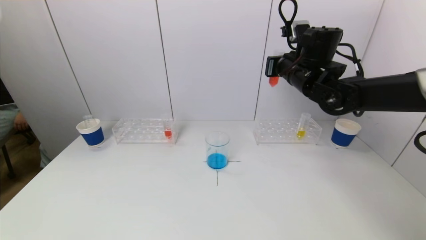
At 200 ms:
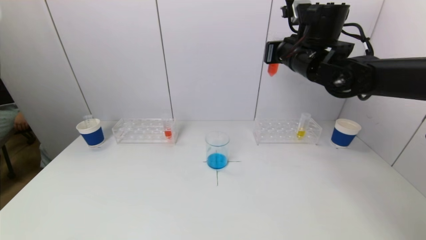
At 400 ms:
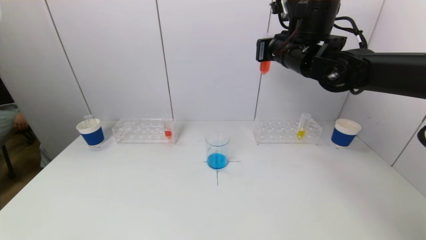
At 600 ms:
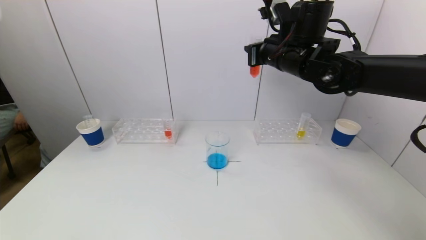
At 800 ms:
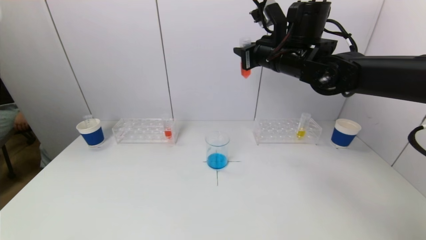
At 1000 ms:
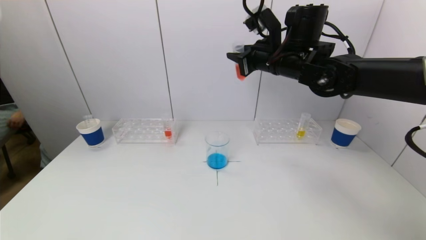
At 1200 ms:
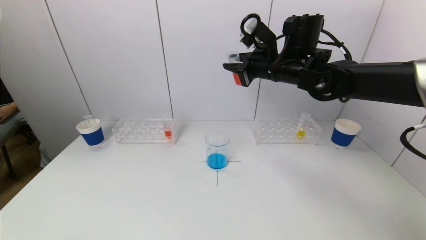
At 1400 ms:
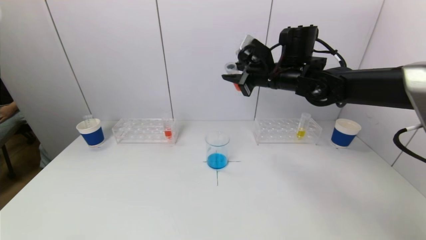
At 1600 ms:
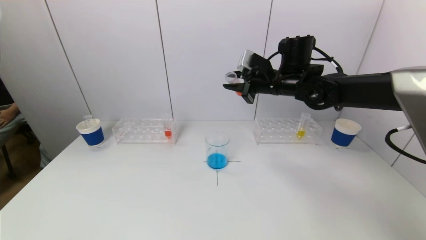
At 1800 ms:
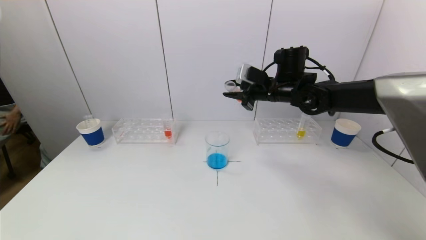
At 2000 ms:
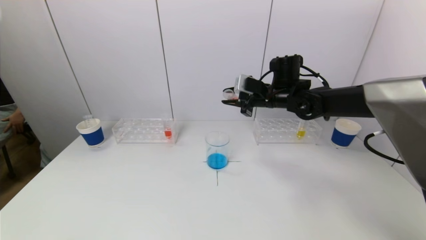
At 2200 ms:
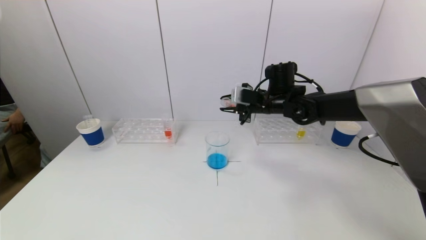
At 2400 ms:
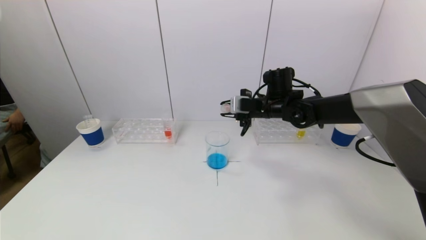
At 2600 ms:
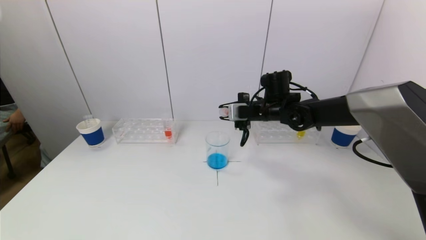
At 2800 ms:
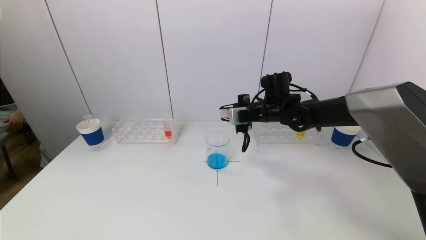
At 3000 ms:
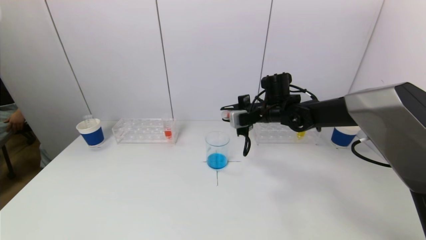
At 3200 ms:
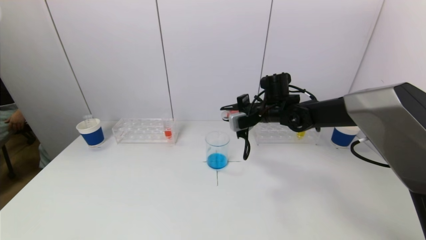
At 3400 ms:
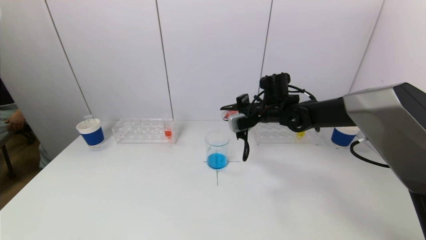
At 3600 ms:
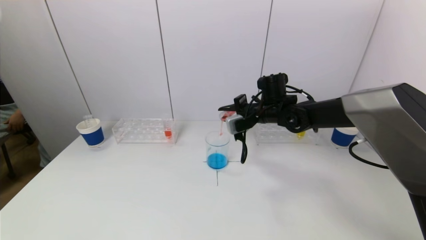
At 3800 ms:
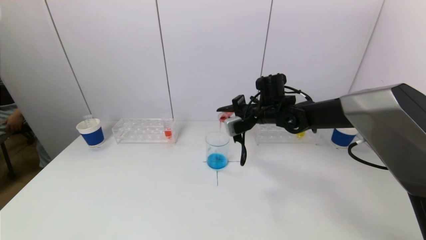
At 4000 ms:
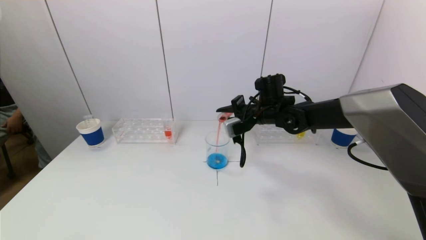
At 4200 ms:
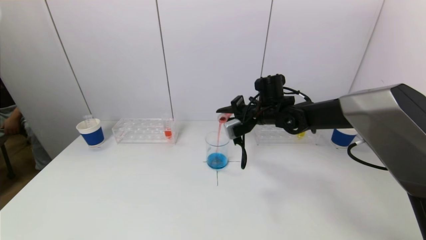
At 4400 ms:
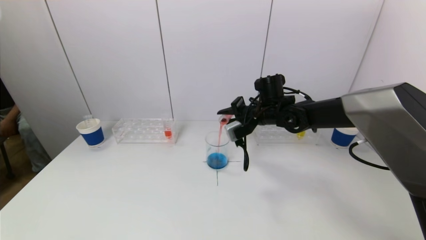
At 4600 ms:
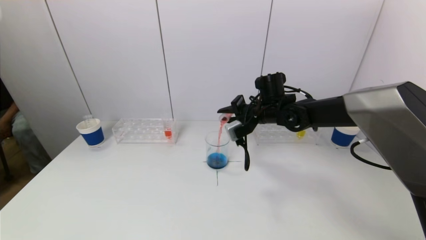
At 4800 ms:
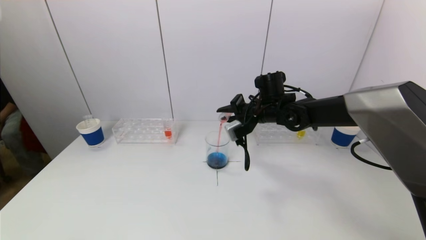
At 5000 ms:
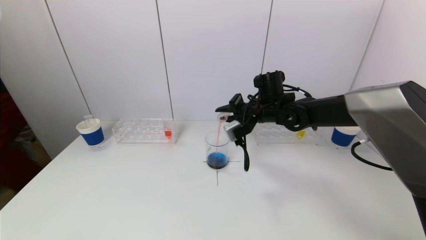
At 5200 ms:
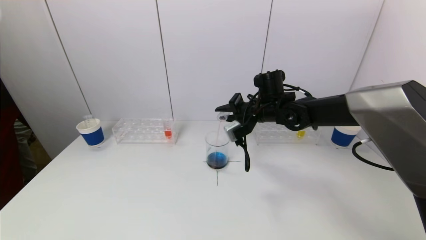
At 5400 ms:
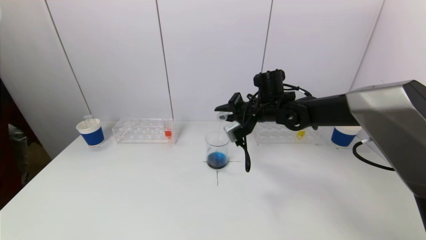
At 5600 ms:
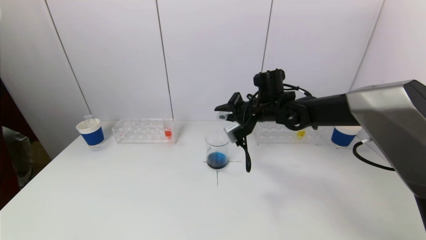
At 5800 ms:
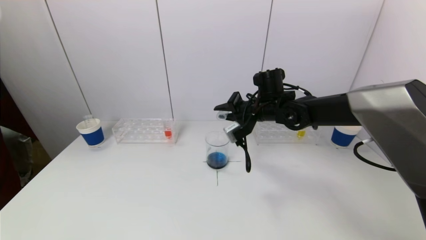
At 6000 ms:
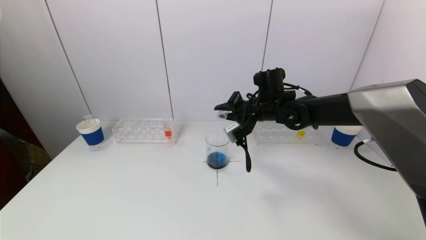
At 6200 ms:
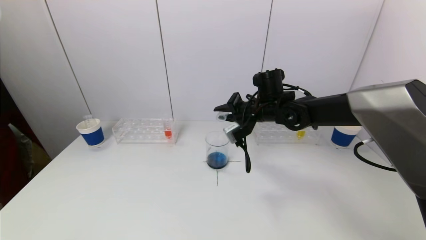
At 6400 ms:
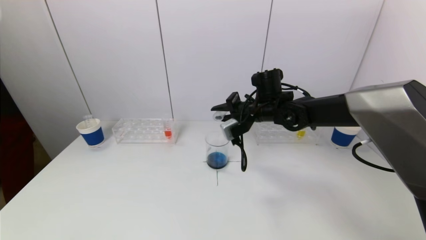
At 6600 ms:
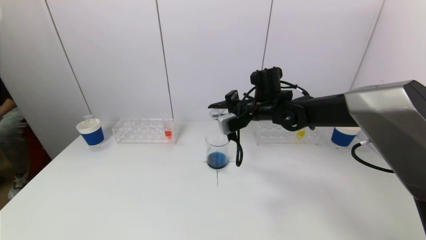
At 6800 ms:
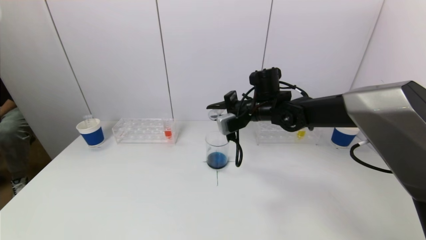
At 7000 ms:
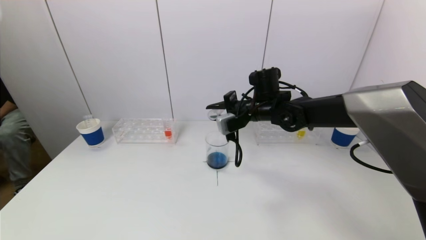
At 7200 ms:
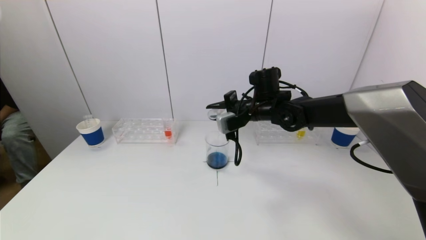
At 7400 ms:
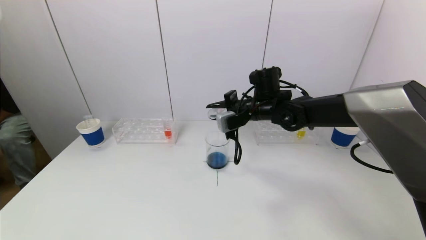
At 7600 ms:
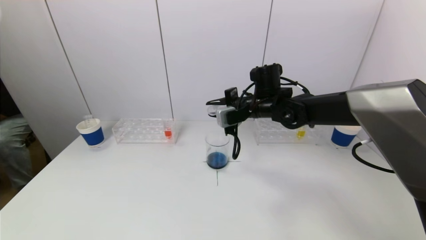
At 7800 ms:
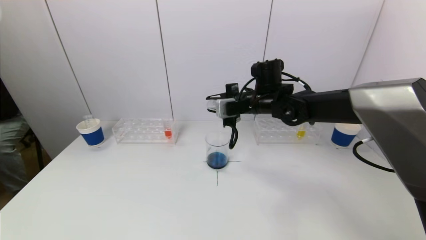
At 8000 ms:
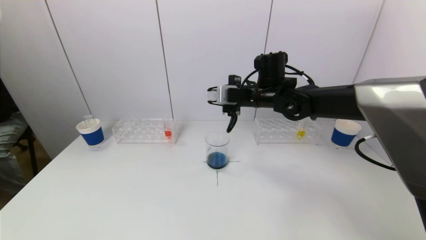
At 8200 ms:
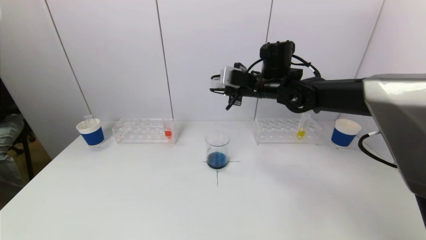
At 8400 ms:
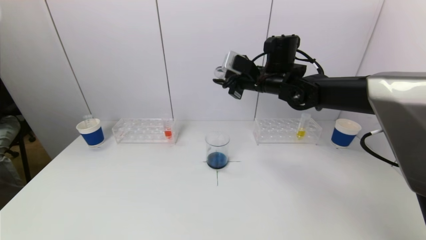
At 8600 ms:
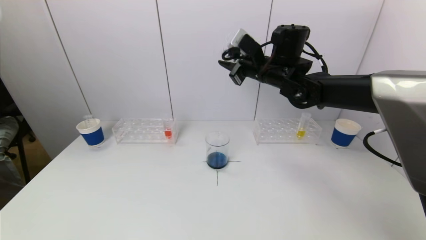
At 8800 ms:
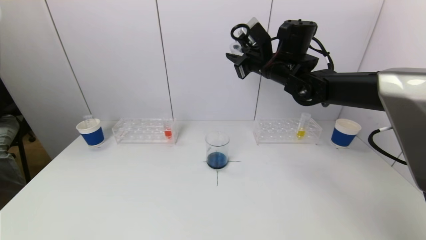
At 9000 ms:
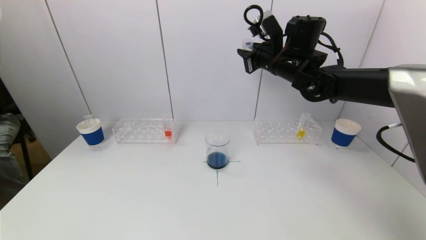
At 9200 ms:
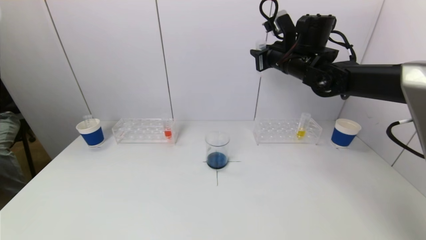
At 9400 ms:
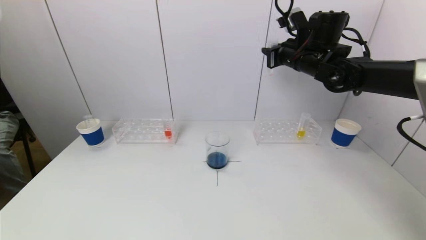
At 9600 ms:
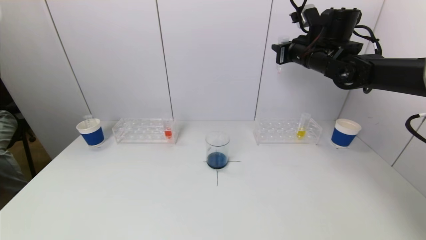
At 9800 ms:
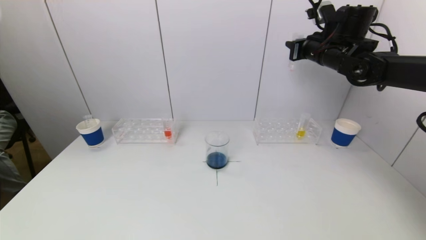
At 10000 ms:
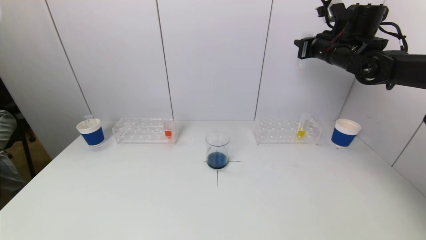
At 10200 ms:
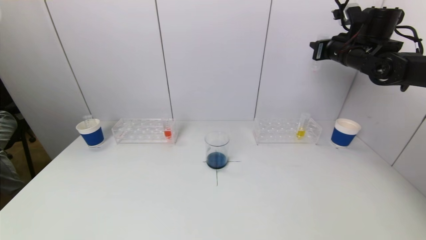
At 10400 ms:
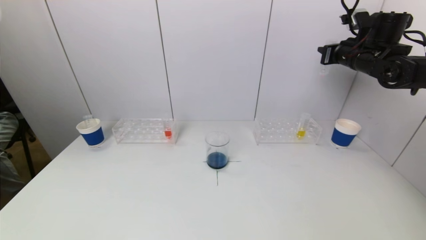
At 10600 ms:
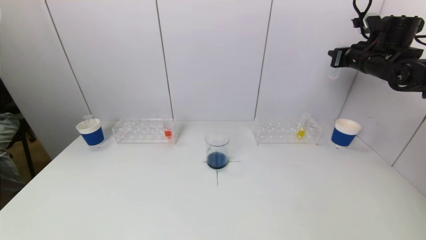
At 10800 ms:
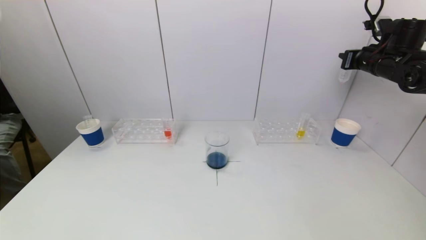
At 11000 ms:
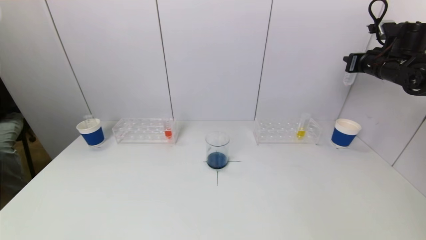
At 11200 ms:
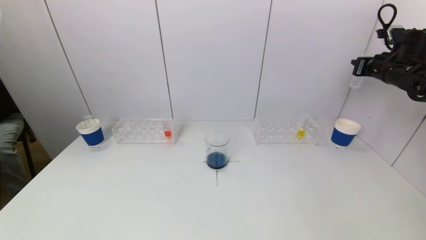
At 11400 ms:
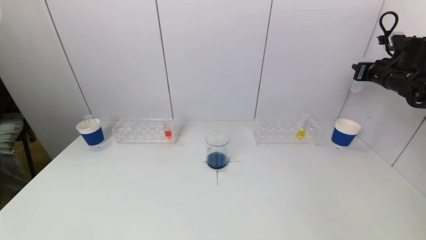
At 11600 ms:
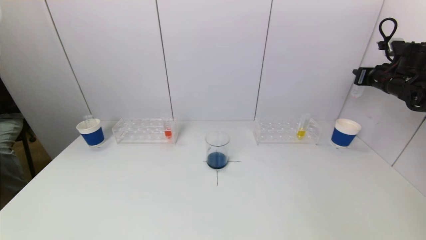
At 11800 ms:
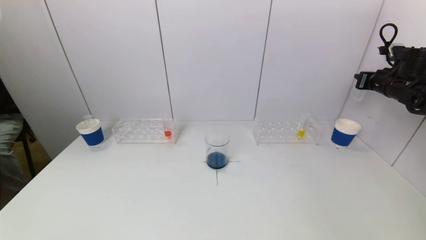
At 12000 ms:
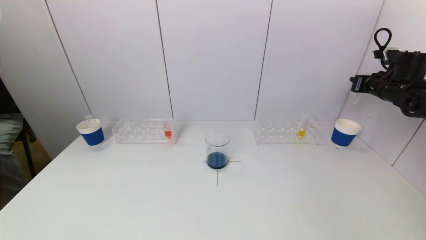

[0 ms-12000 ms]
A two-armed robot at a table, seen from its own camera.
Task of the whole recording: pick up a test tube with pigment on left test tube rack and a test tube with pigment on right test tube rack by grippers and pour them into the beaker.
Step, 0 ms to 6400 ms: Pour the red reagent into the graduated cylinder with the right gripper.
1600 ms to 3000 ms: The right gripper shifts roughly 10 cm downward.
3000 ms to 4400 ms: There are only small adjustments of the grippers.
4400 ms to 6000 ms: The grippers move only a little.
7600 ms to 9000 ms: The right gripper travels upward and to the right by some 10 cm.
9000 ms to 10400 ms: The right gripper is displaced to the right by approximately 20 cm.
10400 ms to 12000 ms: The right gripper heads to the right and downward, covering roughly 15 cm.

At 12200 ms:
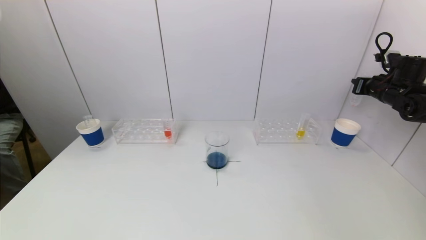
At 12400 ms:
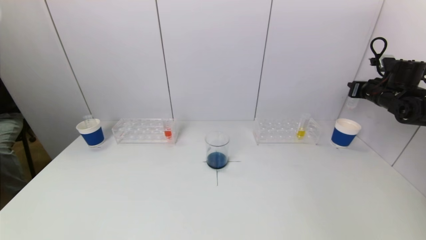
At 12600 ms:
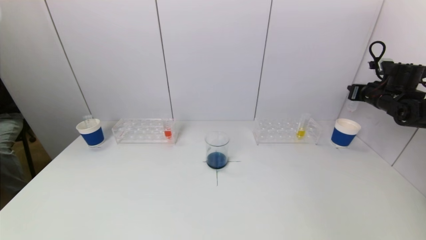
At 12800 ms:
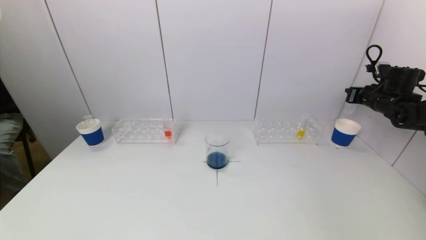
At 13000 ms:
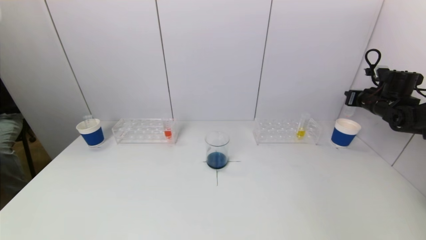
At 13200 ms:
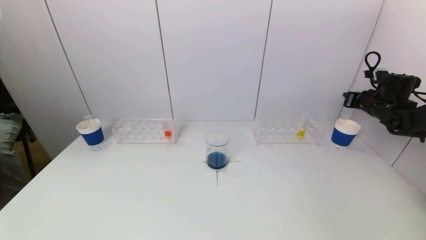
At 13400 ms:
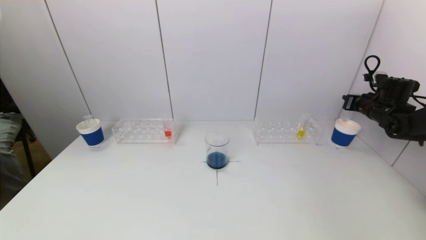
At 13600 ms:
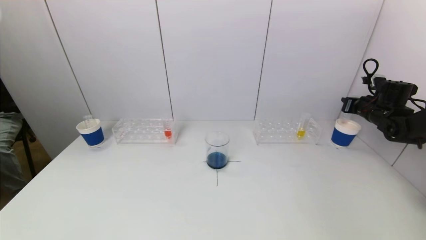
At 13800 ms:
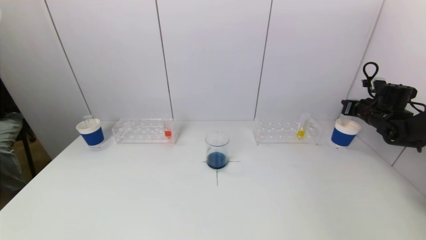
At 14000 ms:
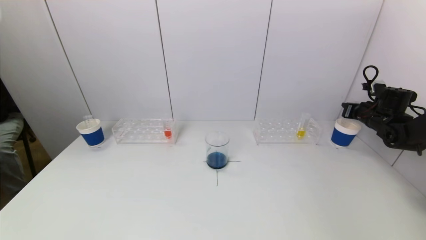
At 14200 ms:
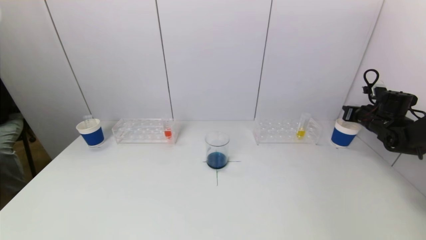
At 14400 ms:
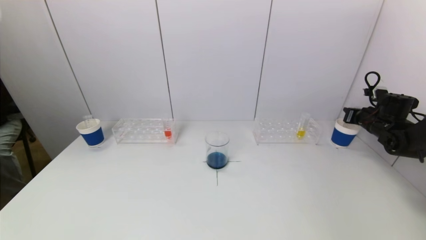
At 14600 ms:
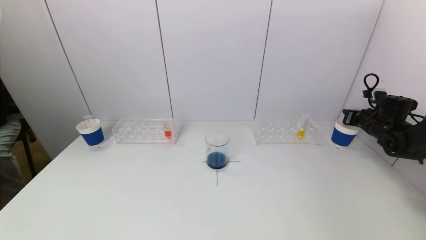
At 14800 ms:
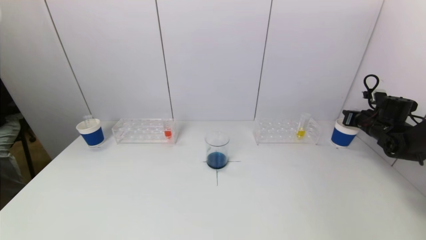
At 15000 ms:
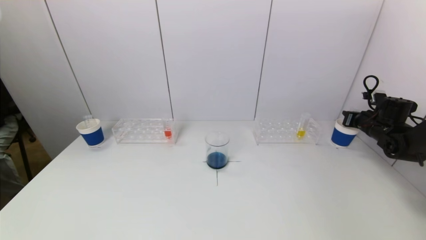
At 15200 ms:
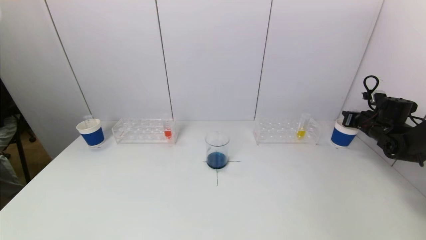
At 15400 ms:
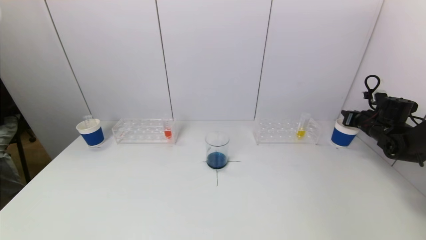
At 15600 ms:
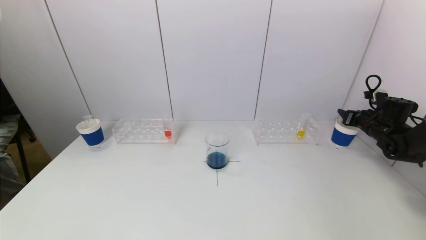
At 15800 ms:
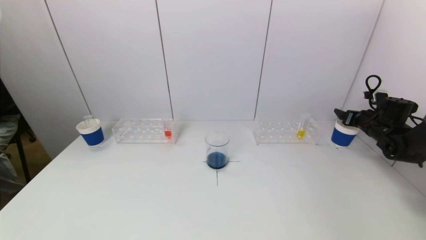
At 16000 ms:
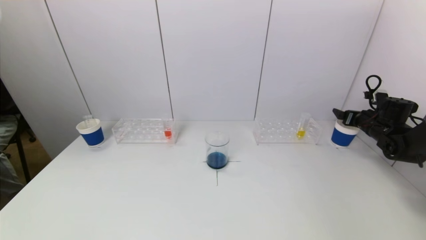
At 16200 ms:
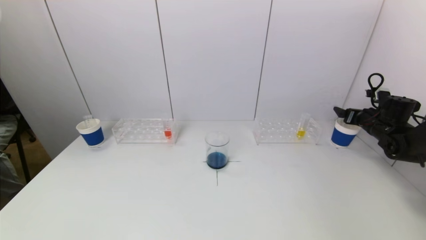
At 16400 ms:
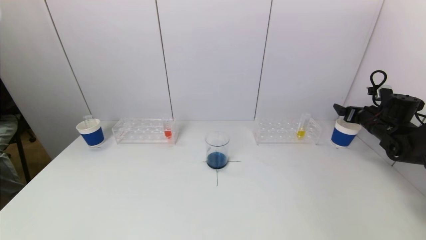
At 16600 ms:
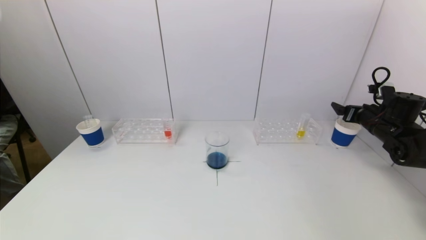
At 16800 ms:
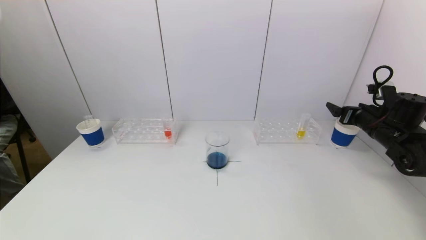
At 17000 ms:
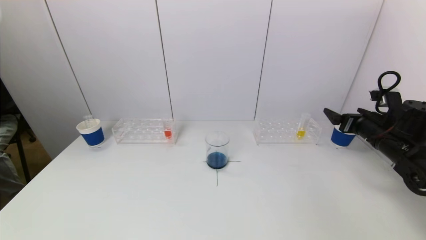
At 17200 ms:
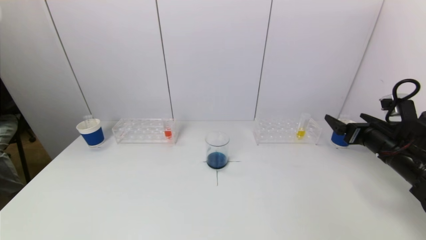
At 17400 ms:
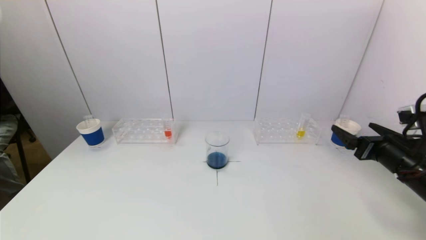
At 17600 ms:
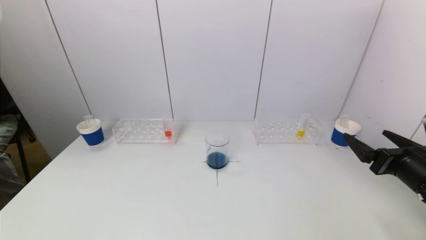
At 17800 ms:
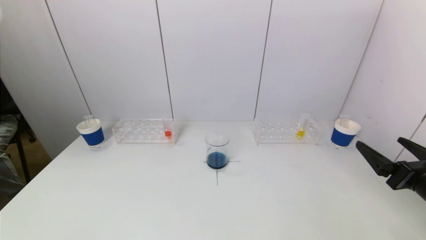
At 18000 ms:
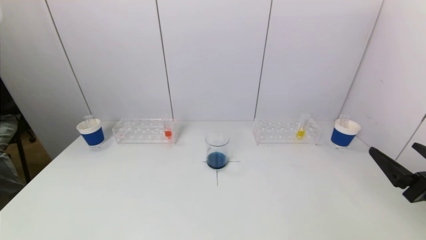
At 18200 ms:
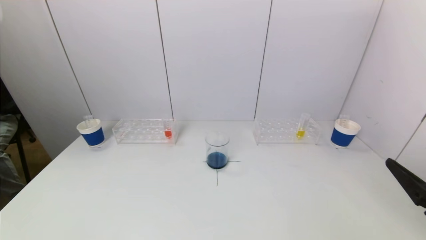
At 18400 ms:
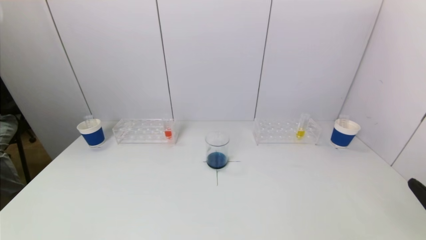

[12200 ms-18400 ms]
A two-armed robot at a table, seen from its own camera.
Task of the whole recording: pick up a test tube with pigment on left test tube rack and a test tube with pigment on right test tube rack by grippers and pour them into the beaker.
Step, 12200 ms to 16000 ms: Place the test tube into the paper cup with the right gripper.
12200 ms to 13800 ms: The right gripper goes roughly 10 cm downward.
13800 ms to 15400 ms: The grippers move only a little.
15400 ms to 16800 ms: The right gripper travels to the left and backward by about 10 cm, and opens.
16800 ms to 18400 ms: The right gripper heads backward, covering some 30 cm.
